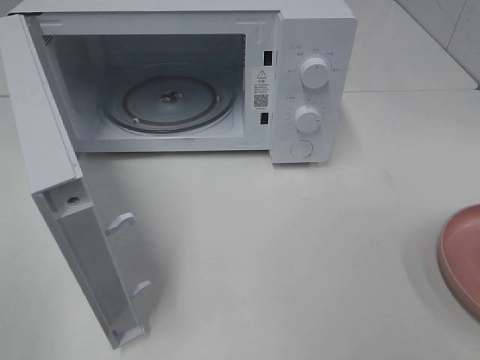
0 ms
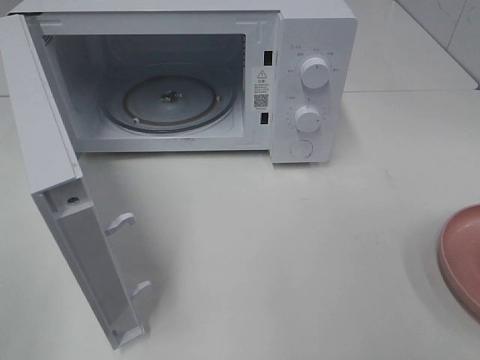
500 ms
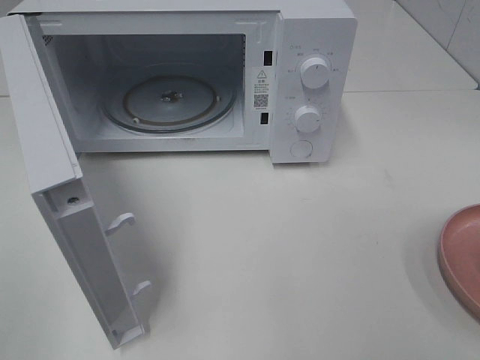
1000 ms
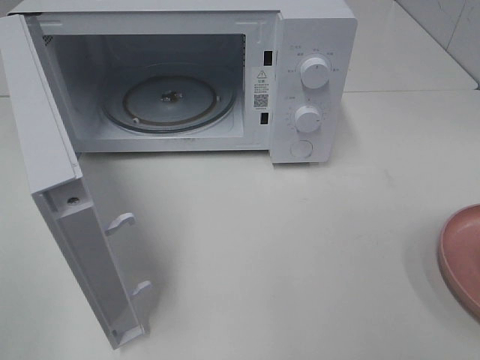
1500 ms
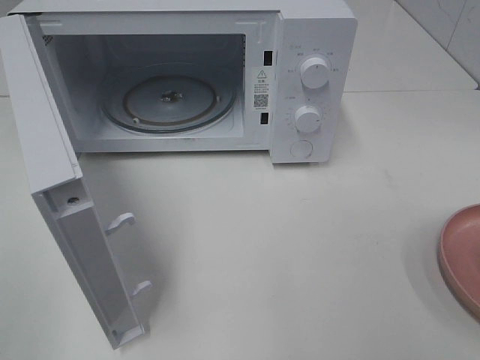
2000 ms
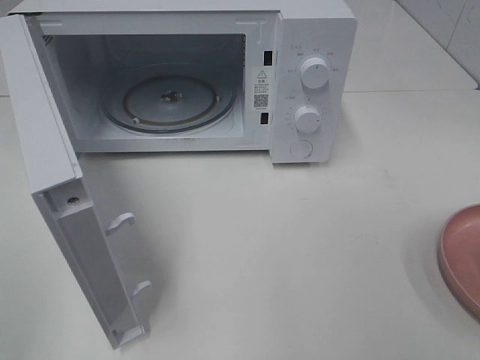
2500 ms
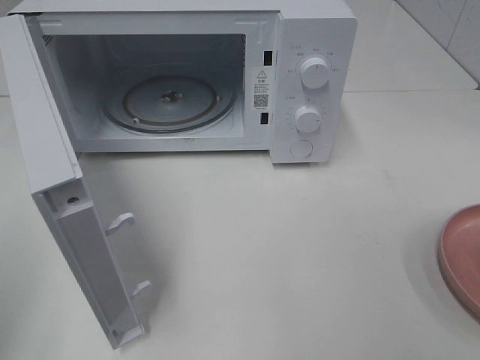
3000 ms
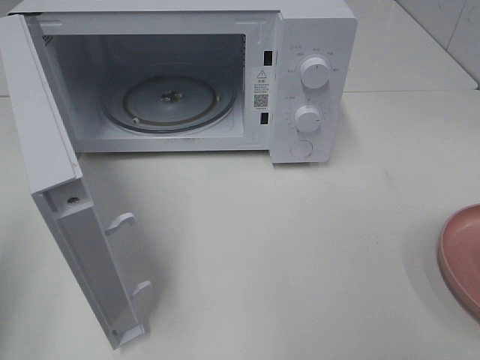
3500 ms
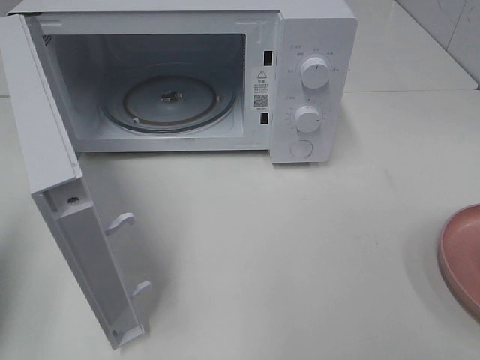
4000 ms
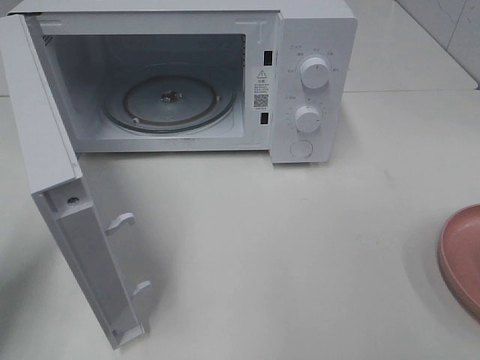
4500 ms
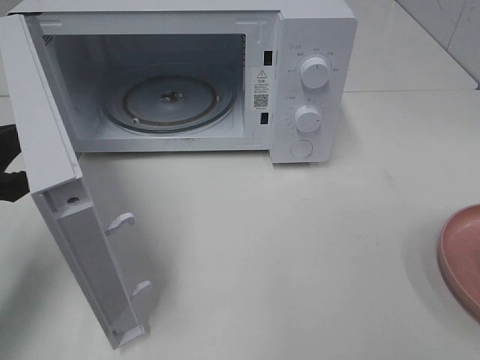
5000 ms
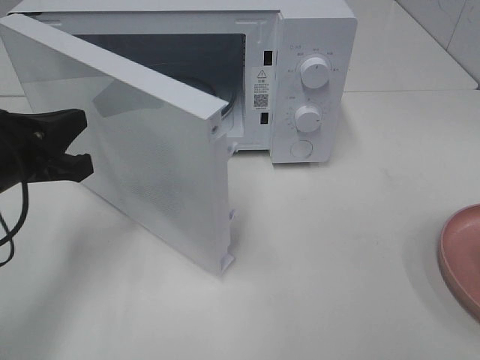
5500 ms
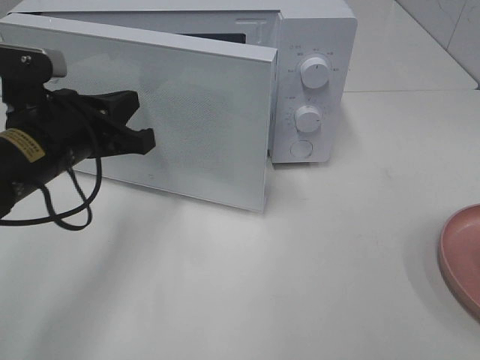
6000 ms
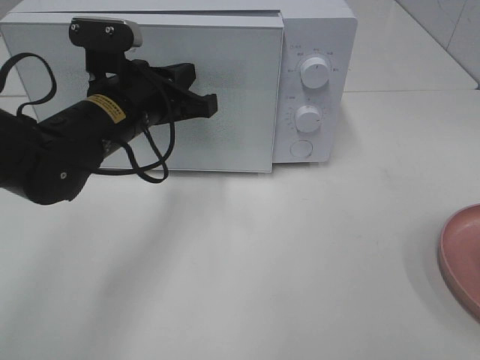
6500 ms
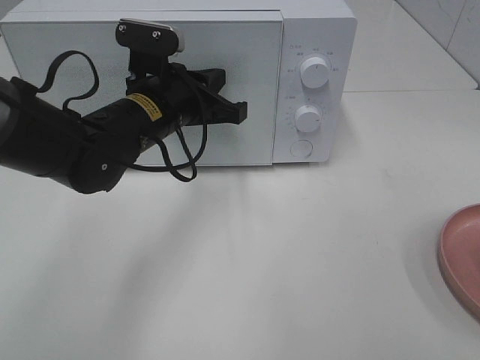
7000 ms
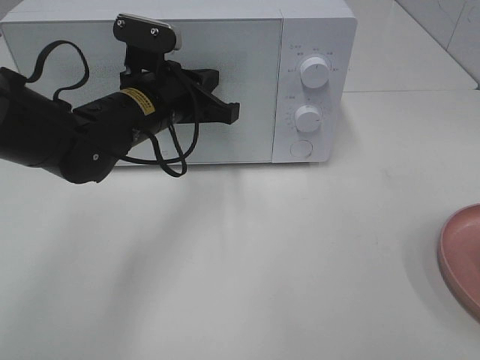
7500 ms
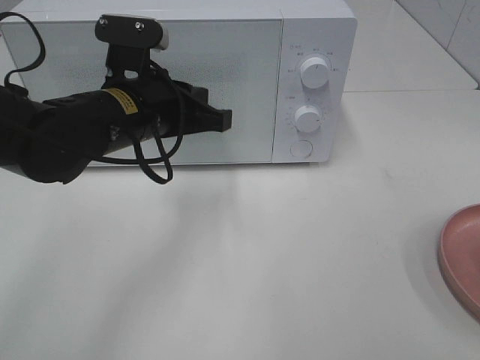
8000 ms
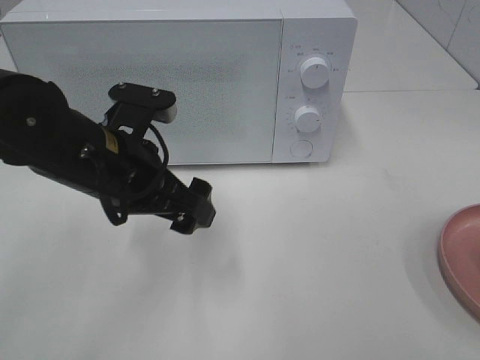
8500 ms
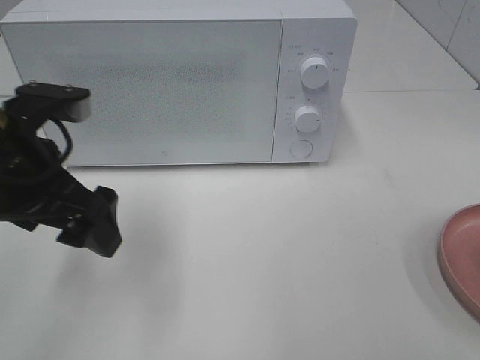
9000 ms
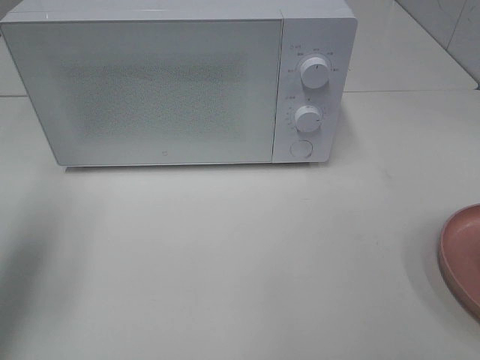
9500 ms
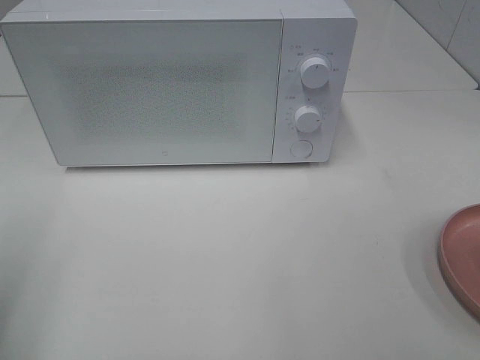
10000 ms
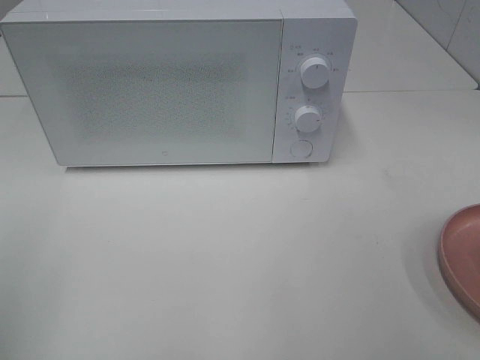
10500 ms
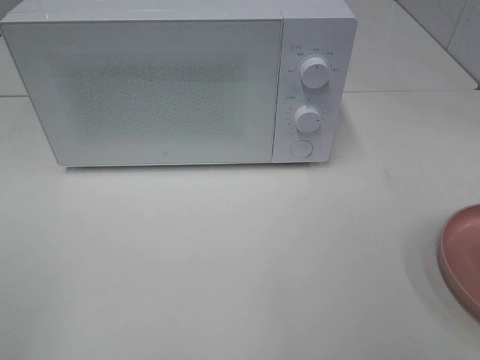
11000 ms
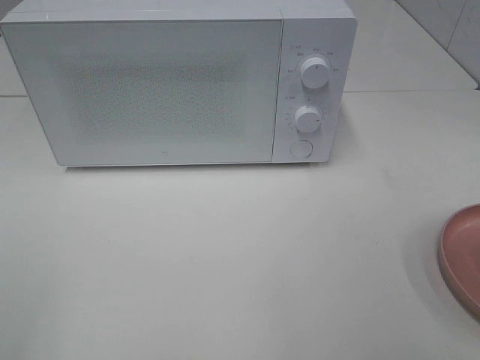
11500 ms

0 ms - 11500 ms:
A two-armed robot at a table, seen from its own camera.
Task of the whole recording: Heat the burger.
Step, 0 ms - 7500 ms: Left hand: close the microwave door.
2000 ms - 4000 ms: The left gripper goes some 15 cm forward, and closes up.
4000 ms - 6000 ms: The left gripper goes some 20 cm to the right and forward.
6000 ms - 7500 ms: The left gripper goes about 10 cm forward and to the right.
7500 ms - 9500 ms: The left gripper goes roughly 25 cm to the left, backward and upward, and opens up.
9500 ms - 11500 ms: The left gripper goes approximately 20 cm backward.

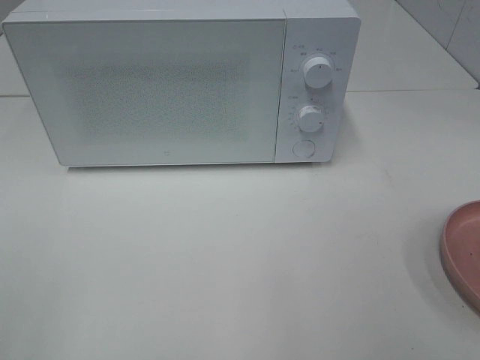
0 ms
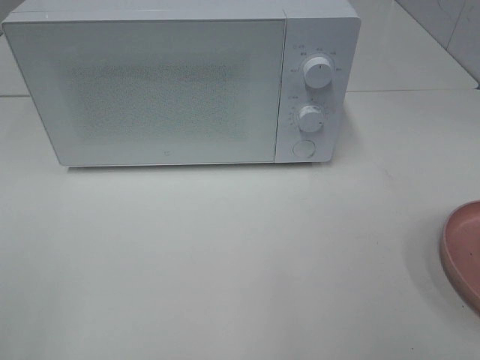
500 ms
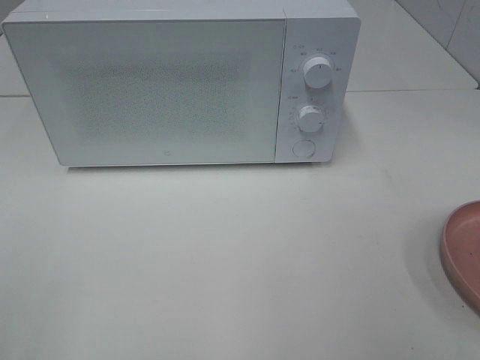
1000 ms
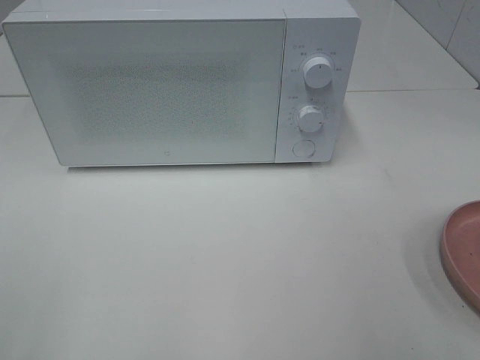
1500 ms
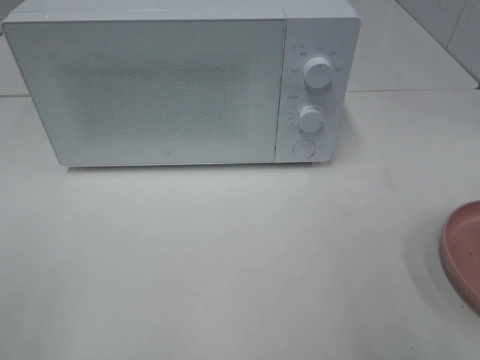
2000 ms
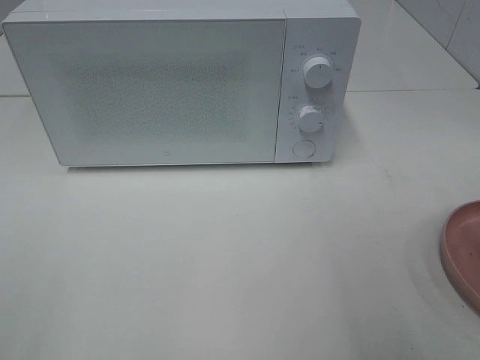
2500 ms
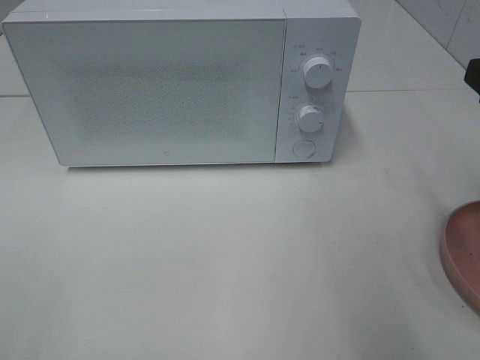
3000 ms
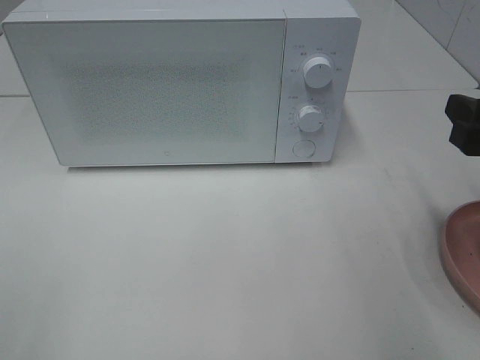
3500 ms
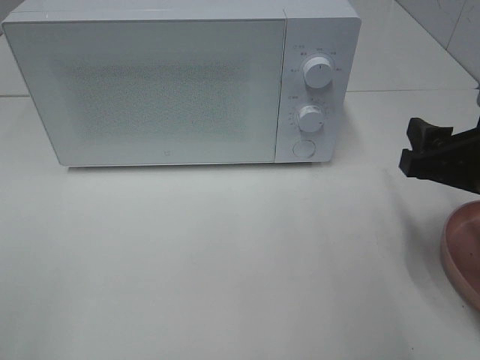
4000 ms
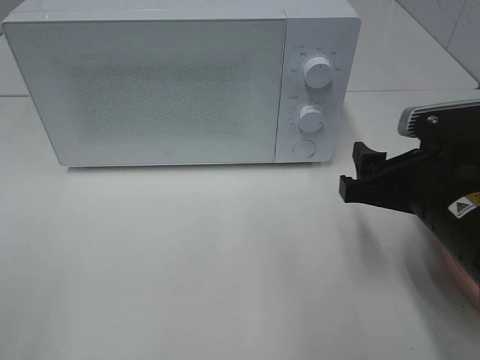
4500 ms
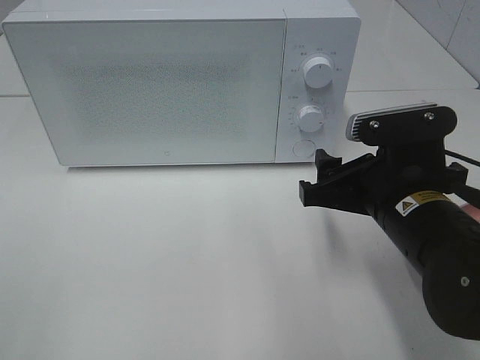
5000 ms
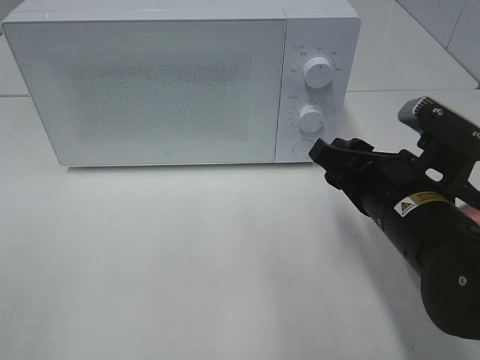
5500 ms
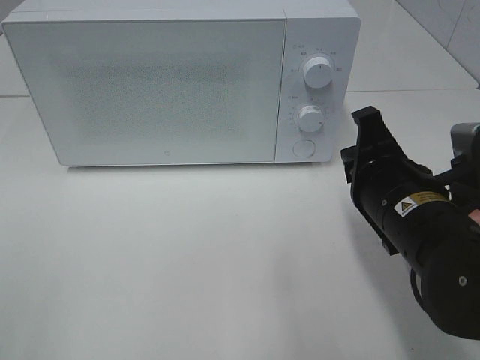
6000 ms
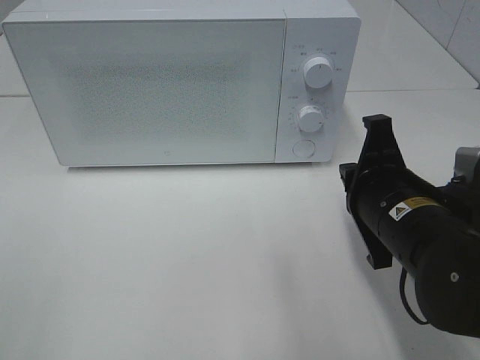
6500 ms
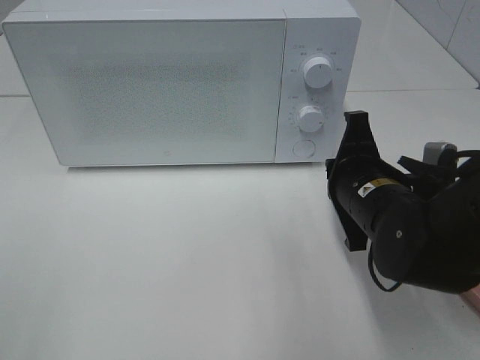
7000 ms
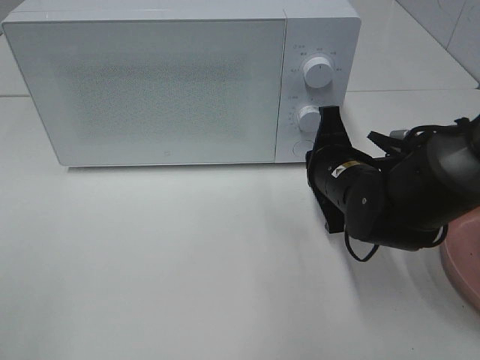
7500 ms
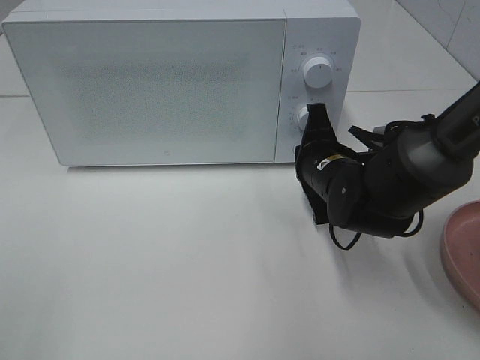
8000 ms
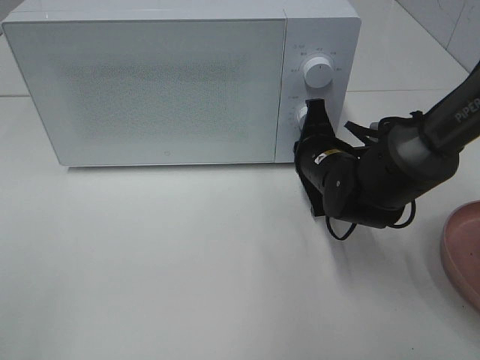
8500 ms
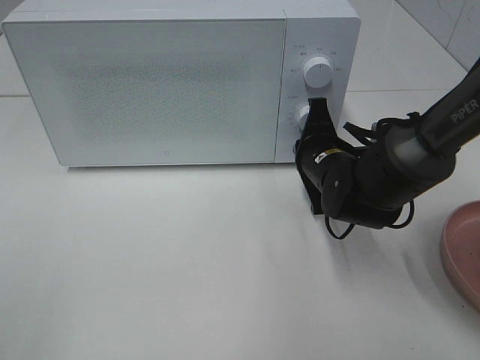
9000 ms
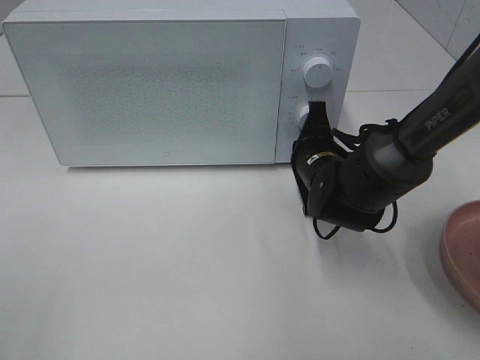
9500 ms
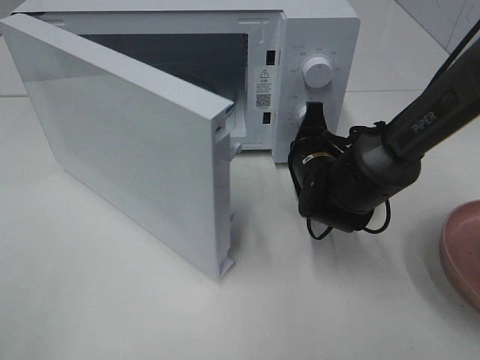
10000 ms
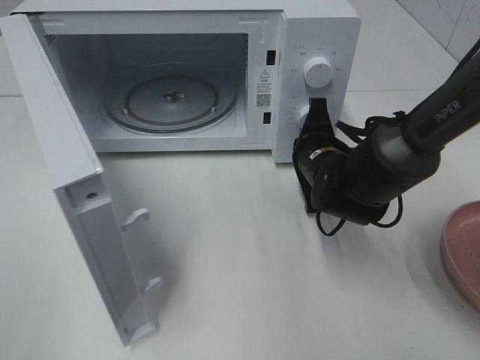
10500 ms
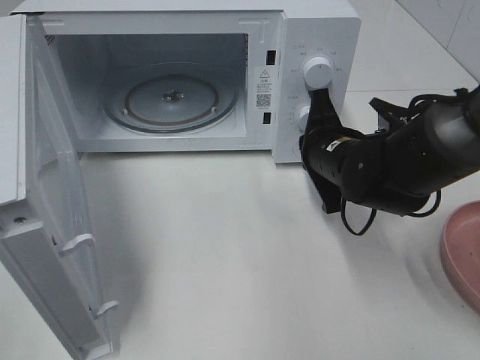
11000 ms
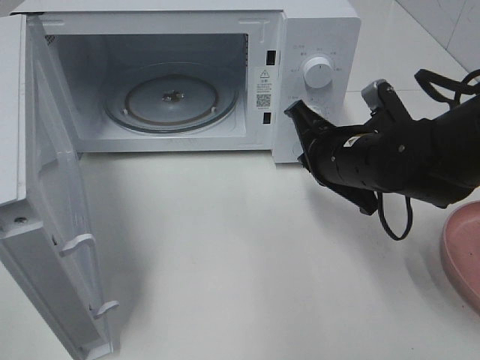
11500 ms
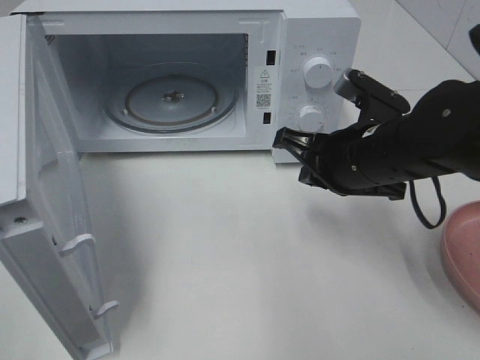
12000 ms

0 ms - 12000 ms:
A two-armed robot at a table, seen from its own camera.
Task of the whole recording: Heat the burger.
Step, 0 ms - 11000 ms: Right hand: press the switch.
2000 ms - 4000 ms: The right gripper goes some 15 cm forward, downward and to the left.
4000 ms - 6000 ms: The right gripper moves to the left, roughly 10 cm, and closes.
6000 ms - 8000 ms: The right gripper moves forward and downward, roughly 15 cm.
10000 ms - 12000 ms: The right gripper shifts some 10 cm upward and backward.

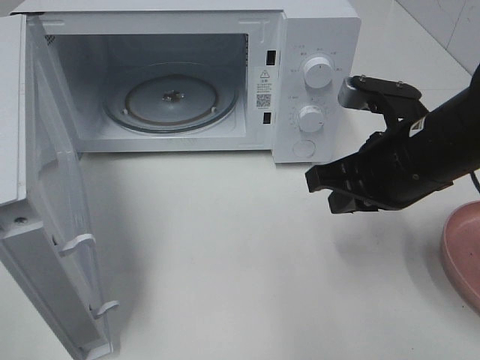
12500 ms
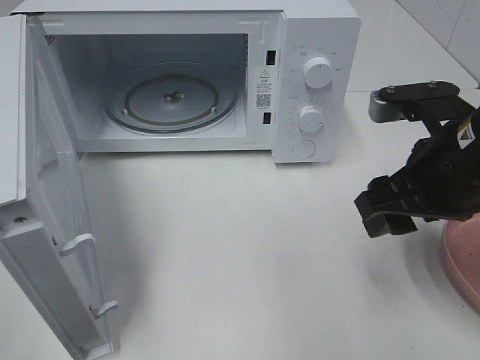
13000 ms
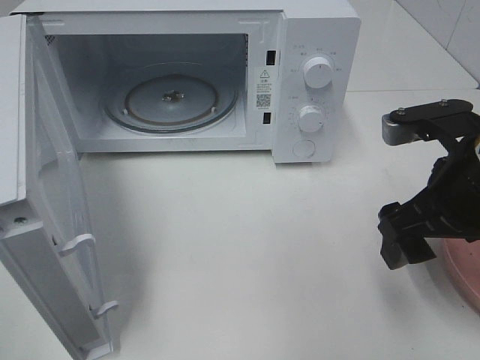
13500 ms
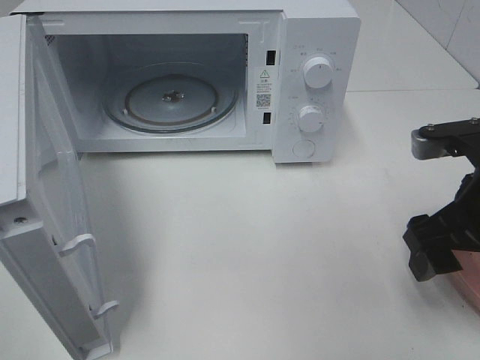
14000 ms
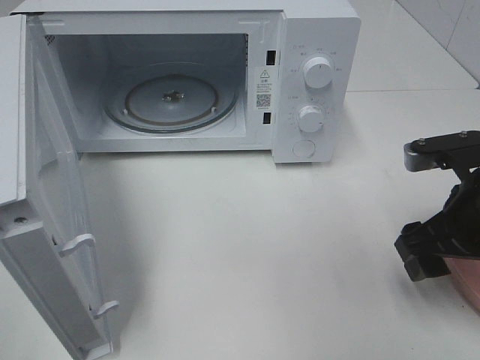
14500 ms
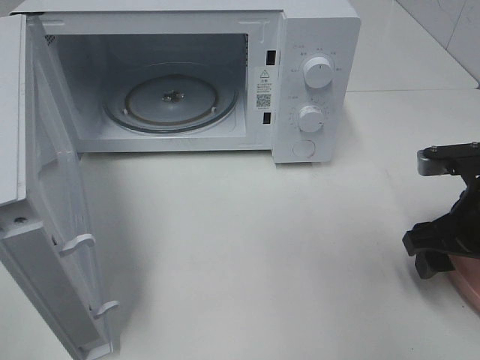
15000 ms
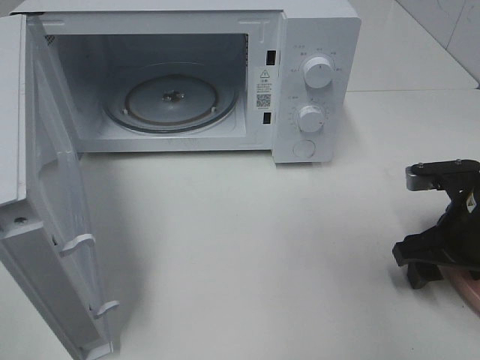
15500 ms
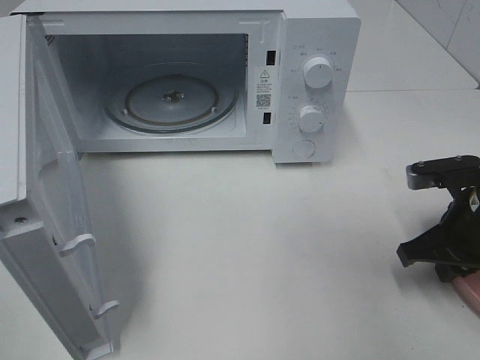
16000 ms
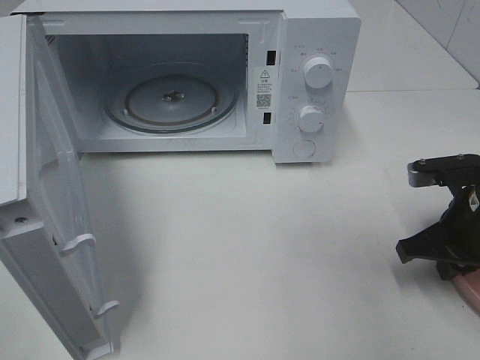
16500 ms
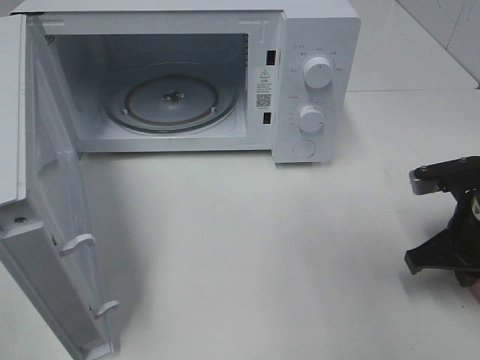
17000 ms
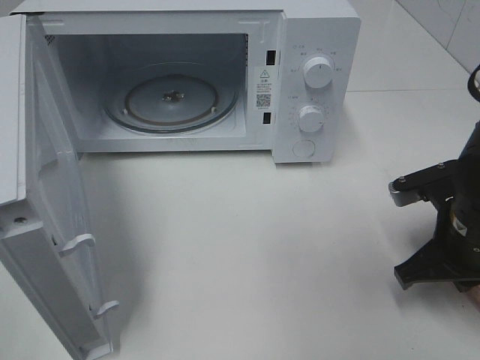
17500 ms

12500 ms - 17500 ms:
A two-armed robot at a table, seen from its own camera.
Task of the whole recording: Heat the burger.
Step, 12500 ms - 16500 ms: Right hand: grab the plate with the hamburger.
12500 ms - 15000 ms: The right gripper moves to the right and downward, some 10 cm, and opens its fingers.
15000 ms - 17500 ms: The right gripper closes.
